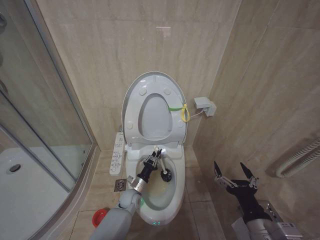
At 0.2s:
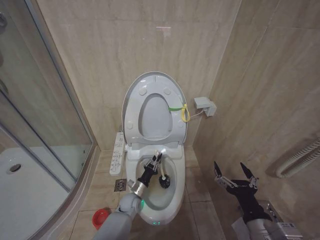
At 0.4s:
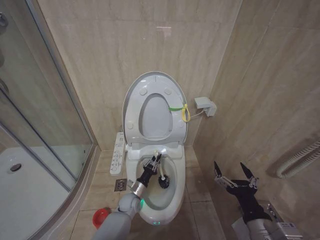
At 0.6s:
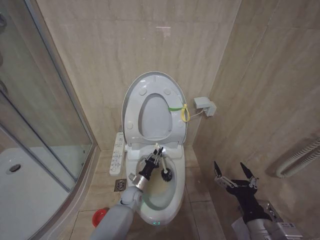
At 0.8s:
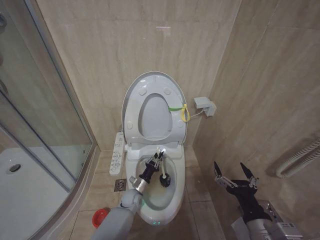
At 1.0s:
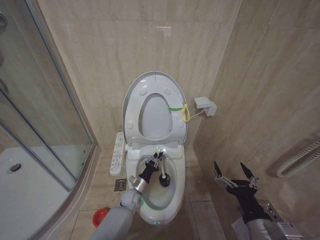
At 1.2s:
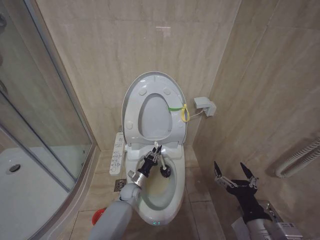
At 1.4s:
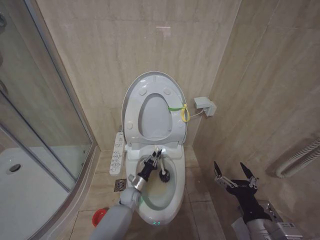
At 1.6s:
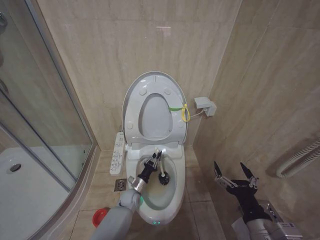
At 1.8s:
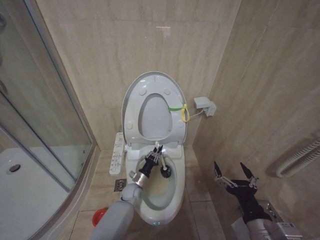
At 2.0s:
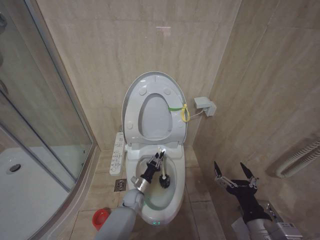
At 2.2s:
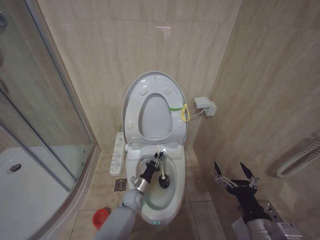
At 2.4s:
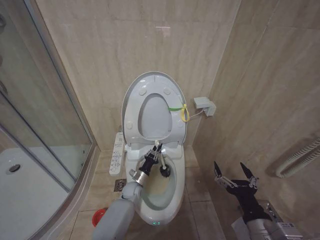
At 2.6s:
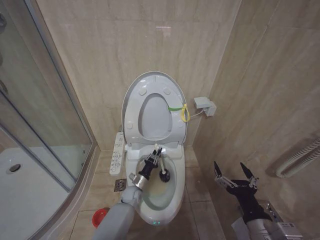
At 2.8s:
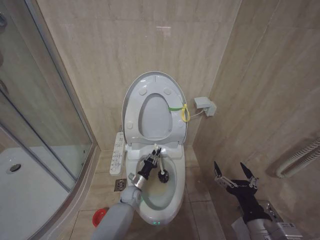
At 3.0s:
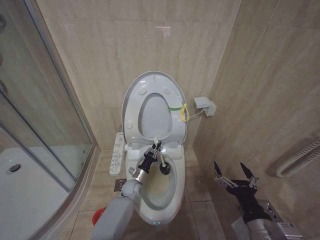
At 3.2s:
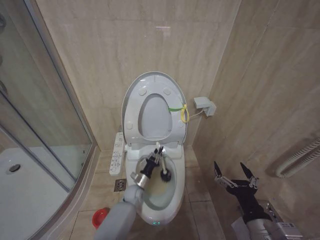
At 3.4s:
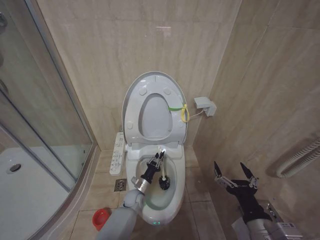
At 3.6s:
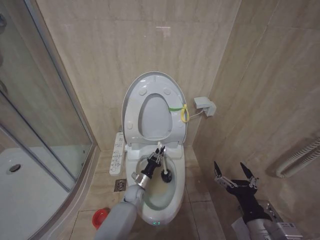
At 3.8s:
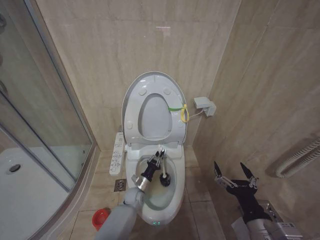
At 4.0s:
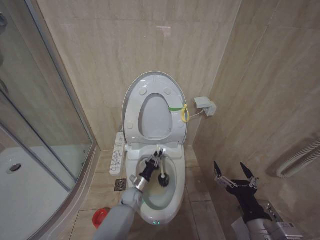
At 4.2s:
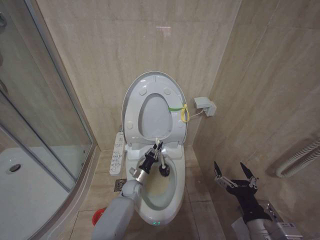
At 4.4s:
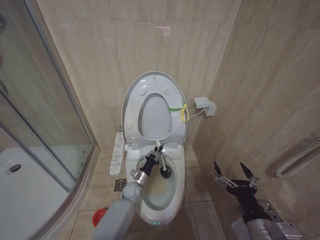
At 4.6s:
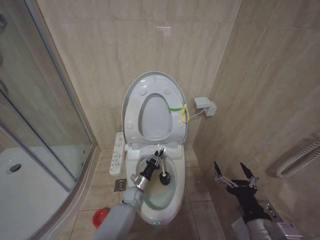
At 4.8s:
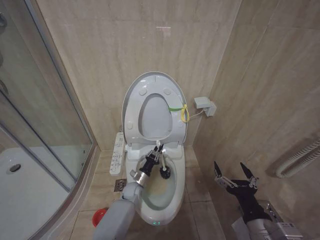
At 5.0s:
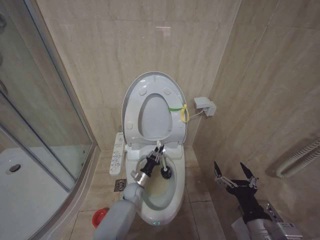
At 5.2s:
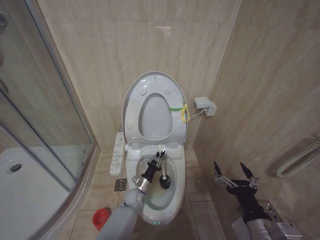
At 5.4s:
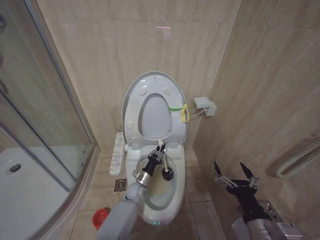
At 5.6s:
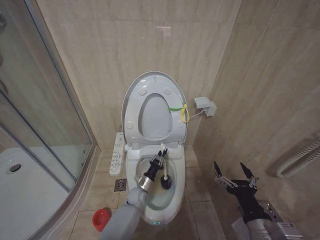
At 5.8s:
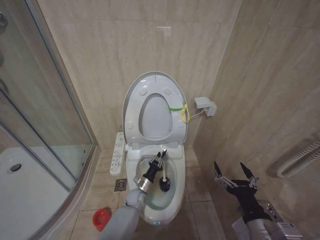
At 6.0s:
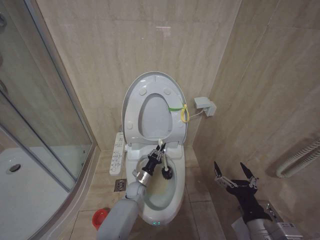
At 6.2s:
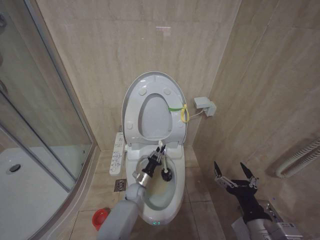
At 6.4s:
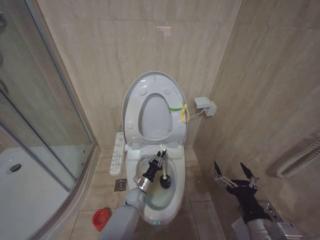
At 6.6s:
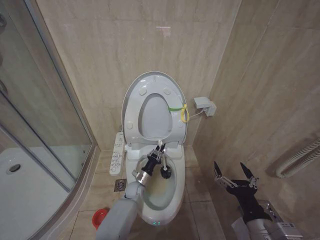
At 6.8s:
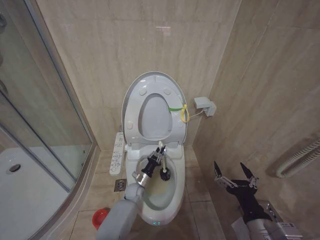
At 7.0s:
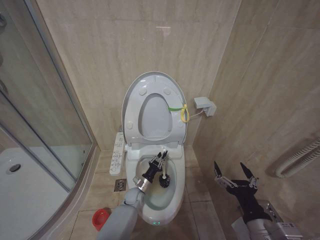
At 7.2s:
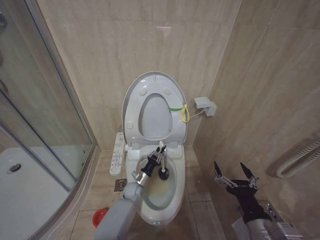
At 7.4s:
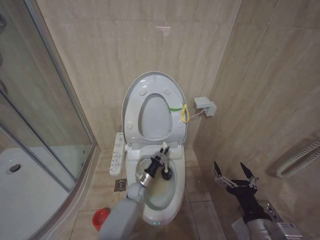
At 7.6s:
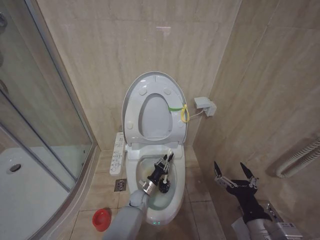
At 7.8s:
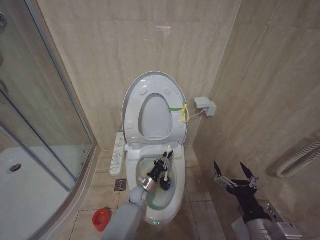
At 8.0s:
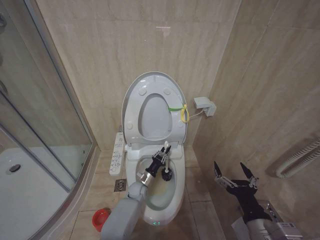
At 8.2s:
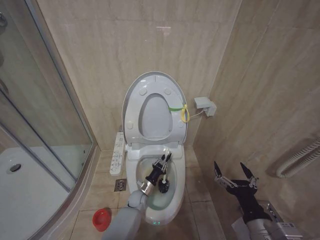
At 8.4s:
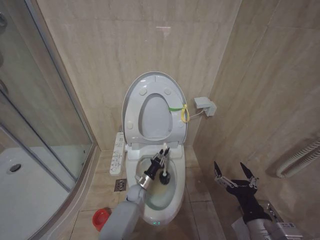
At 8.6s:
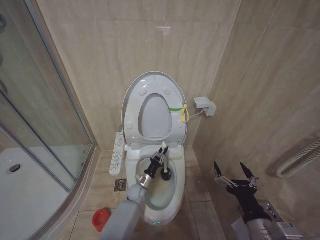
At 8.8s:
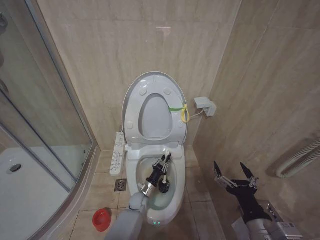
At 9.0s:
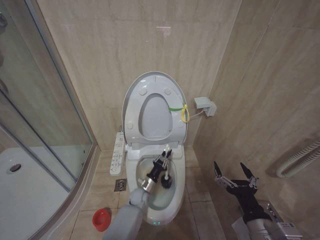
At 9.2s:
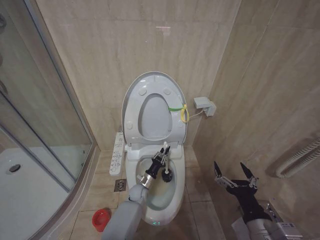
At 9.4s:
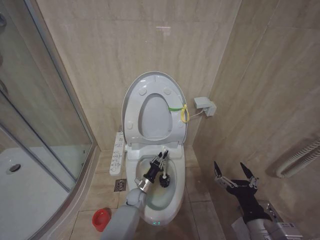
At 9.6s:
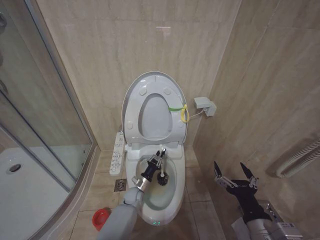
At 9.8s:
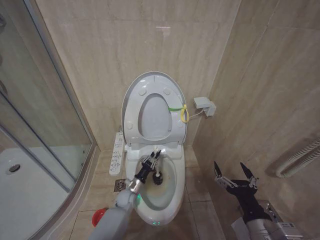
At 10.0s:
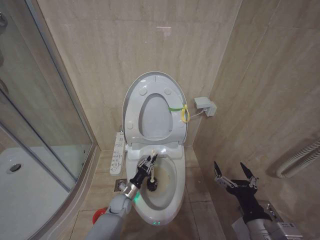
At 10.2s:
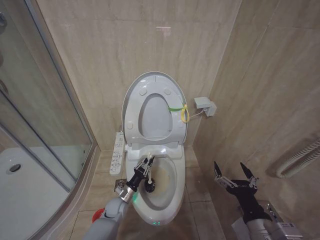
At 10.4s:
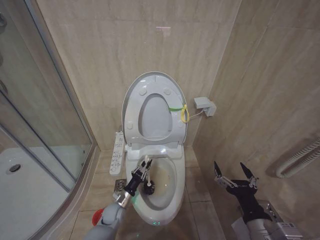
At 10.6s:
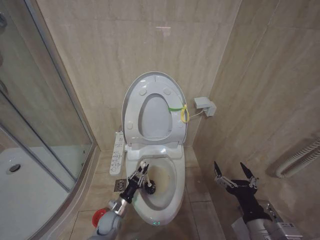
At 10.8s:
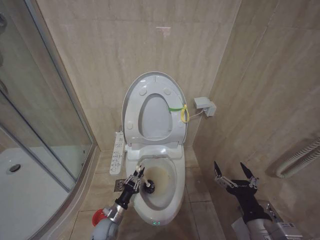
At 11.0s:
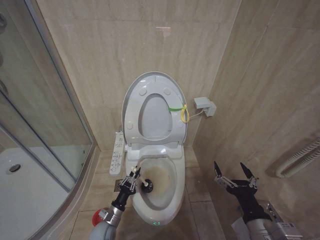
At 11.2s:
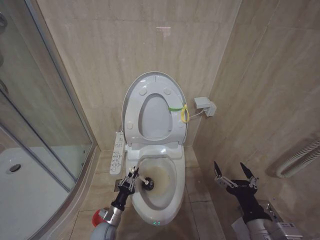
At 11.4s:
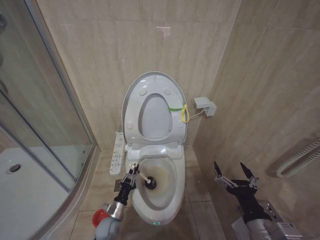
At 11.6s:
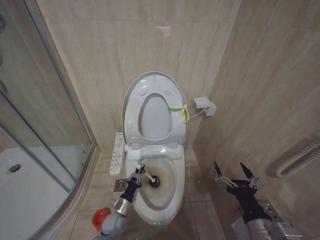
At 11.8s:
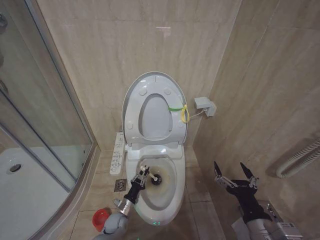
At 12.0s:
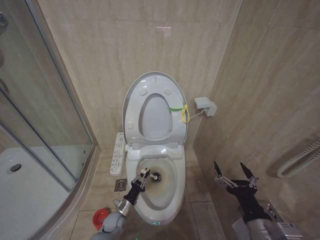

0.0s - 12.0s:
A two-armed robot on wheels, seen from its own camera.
Task of the whole recording: Open the toilet lid, clean the toilet bowl with a toilet brush, close the toilet lid, and flush.
1.6s - 3.0s: The grippers stay close to where they were, moving slightly.
4.4s - 7.6s: The grippers move only a little.
9.0s - 10.4s: The left gripper travels to the left by approximately 10 cm.
10.4s - 12.0s: The left gripper moves downward, roughly 5 cm.

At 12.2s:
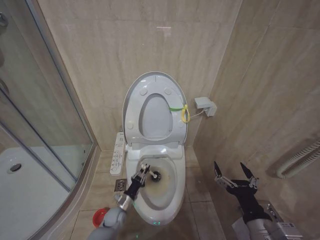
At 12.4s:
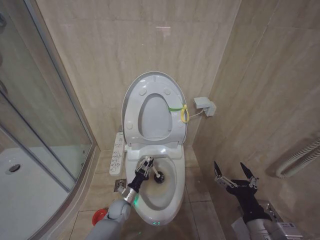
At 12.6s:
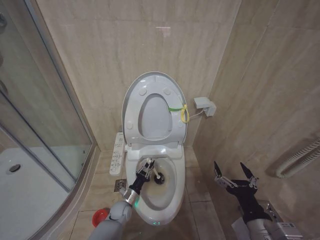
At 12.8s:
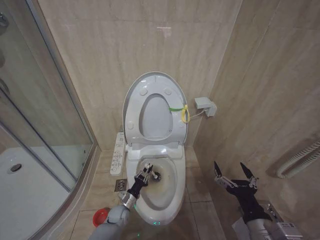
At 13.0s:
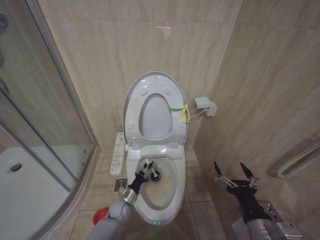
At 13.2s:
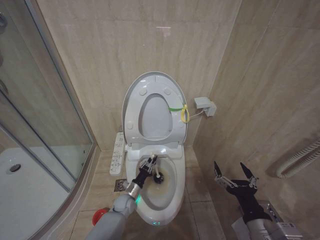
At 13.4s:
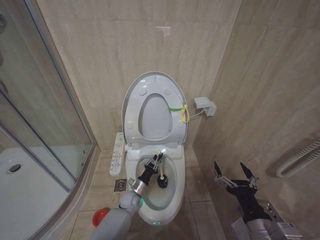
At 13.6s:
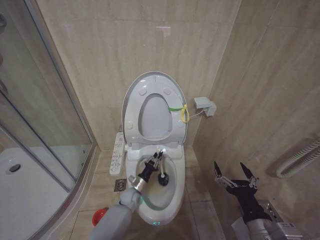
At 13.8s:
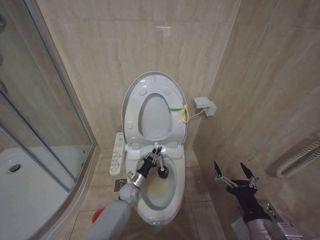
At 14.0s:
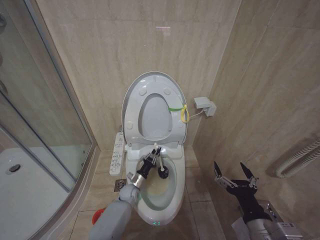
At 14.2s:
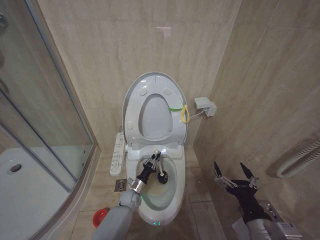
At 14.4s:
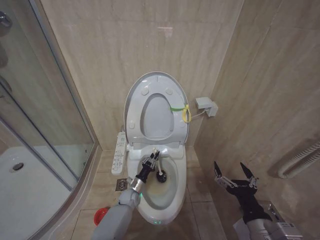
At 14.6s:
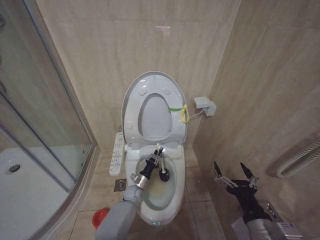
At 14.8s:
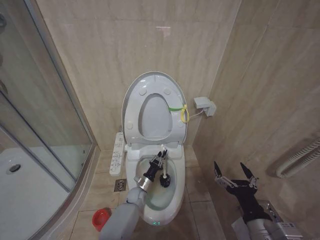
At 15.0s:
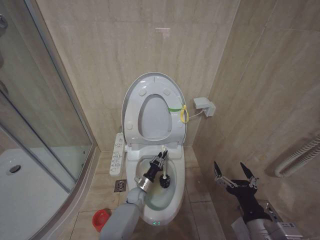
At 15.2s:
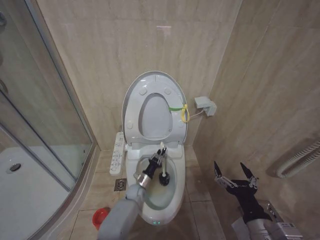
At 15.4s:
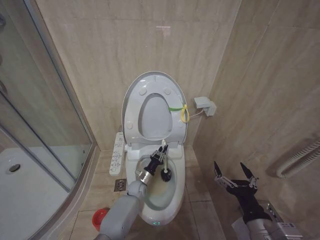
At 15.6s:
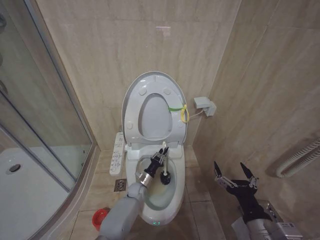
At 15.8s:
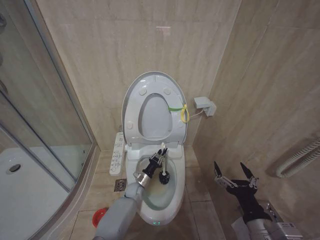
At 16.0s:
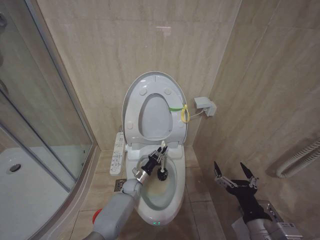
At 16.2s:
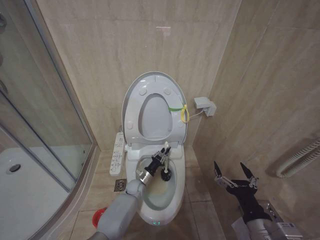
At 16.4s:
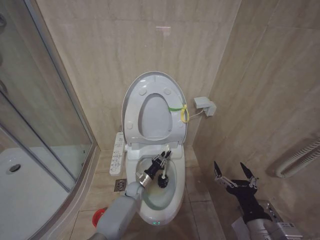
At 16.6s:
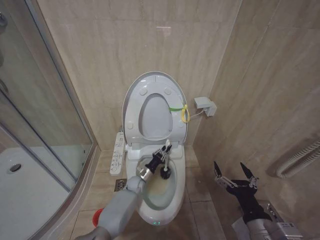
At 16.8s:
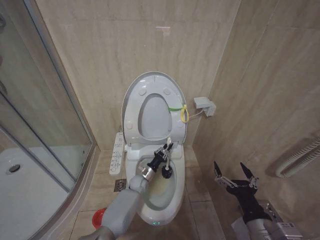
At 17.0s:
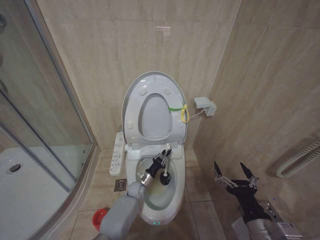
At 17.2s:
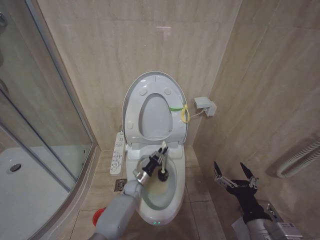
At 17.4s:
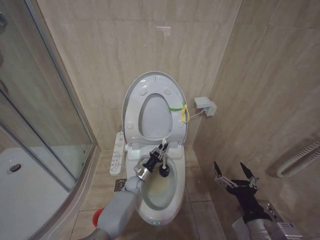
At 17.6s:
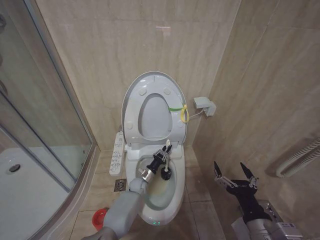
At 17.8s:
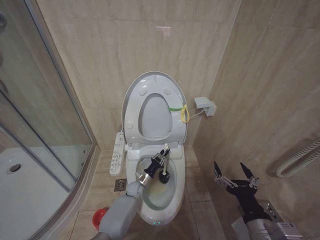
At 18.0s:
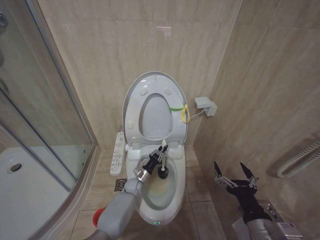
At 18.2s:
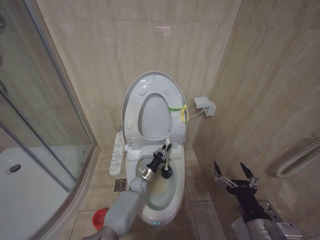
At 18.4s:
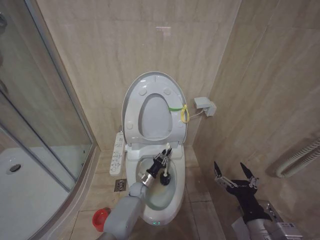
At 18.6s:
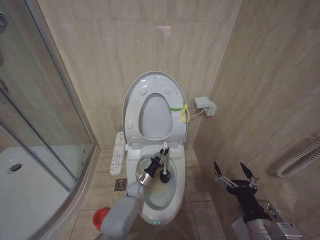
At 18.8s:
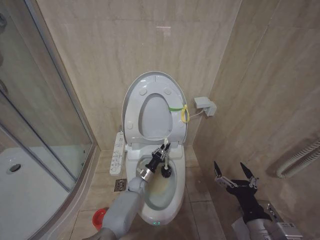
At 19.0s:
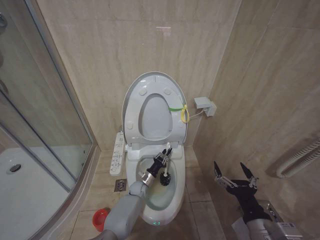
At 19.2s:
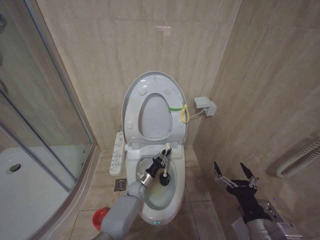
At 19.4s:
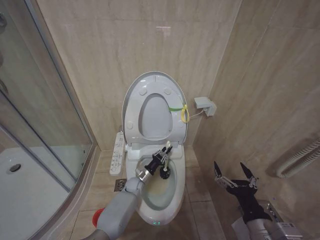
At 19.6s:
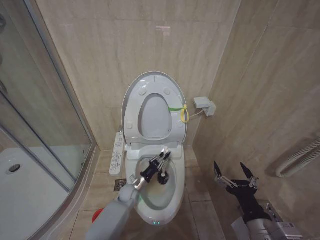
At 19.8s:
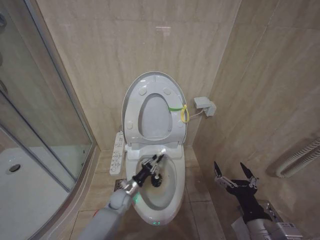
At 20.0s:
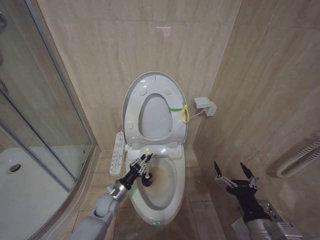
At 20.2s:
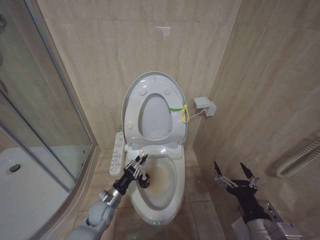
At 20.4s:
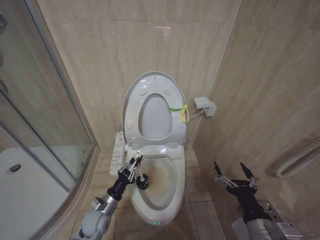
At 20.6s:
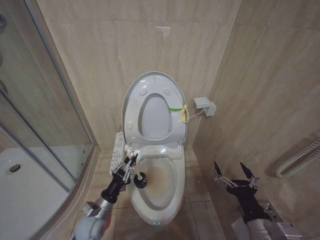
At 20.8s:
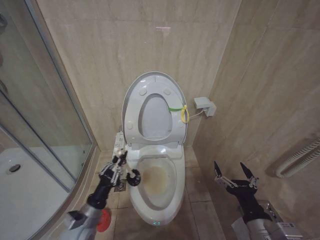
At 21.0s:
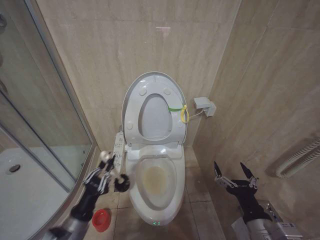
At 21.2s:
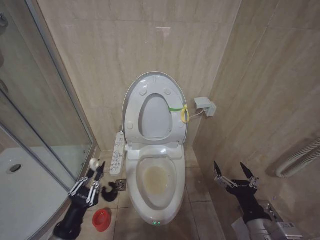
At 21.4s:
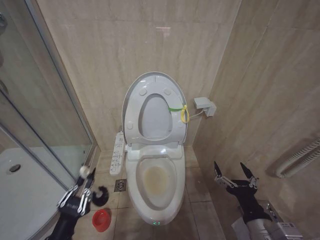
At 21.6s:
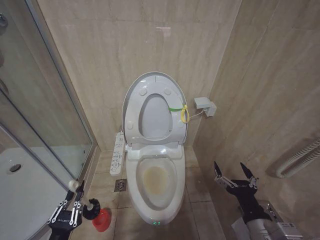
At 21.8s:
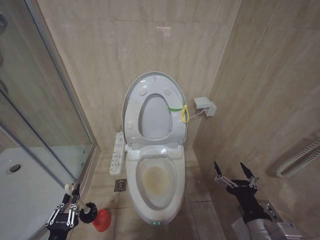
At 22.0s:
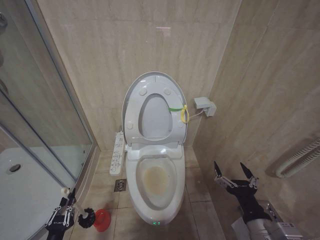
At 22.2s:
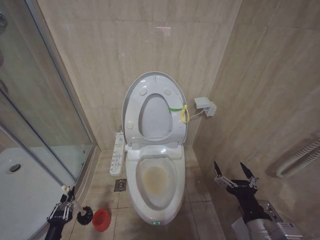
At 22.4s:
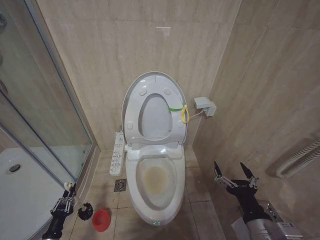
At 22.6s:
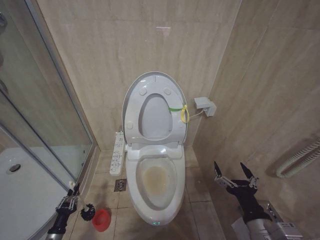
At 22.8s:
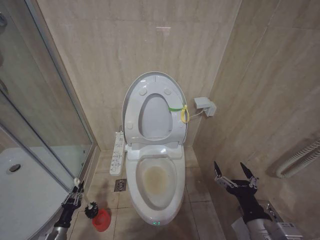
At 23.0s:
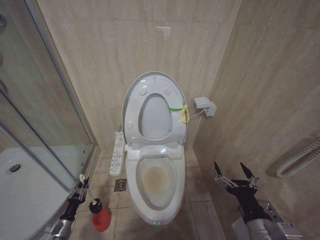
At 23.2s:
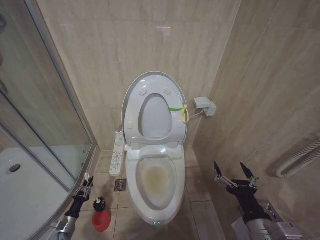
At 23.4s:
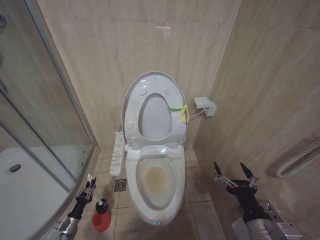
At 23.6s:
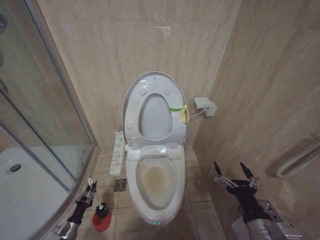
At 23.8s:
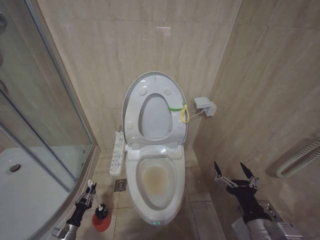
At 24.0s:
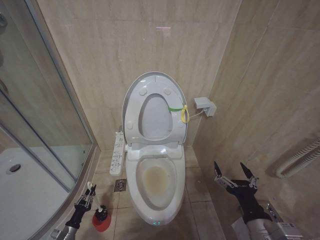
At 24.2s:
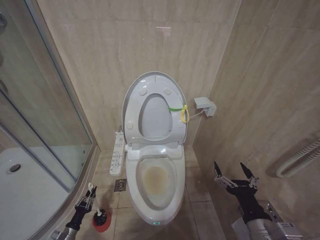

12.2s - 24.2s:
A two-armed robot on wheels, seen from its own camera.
Task of the whole recording: Open the toilet lid, clean the toilet bowl with a toilet brush, close the toilet lid, and flush.
12.2s - 13.8s: The left gripper goes some 15 cm forward, to the right and upward.
13.8s - 16.6s: The grippers stay close to where they were, moving slightly.
16.6s - 18.2s: The grippers make only small movements.
18.2s - 19.8s: The left gripper moves backward and to the left, approximately 10 cm.
19.8s - 21.2s: The left gripper moves backward, upward and to the left, roughly 30 cm.
21.2s - 22.6s: The left gripper heads downward and to the left, covering some 30 cm.
22.6s - 24.2s: The left gripper shifts some 5 cm downward.
